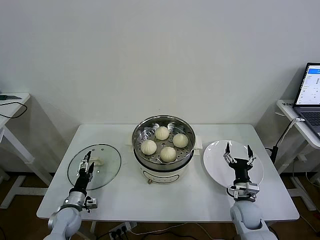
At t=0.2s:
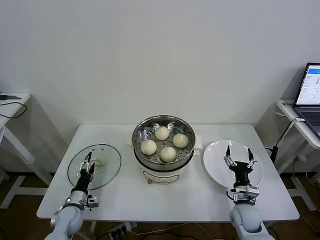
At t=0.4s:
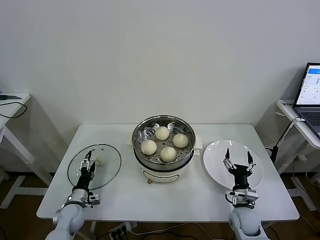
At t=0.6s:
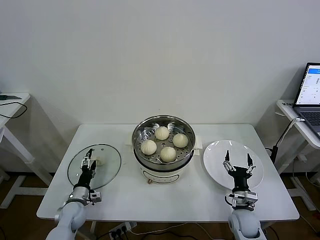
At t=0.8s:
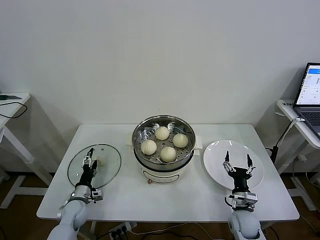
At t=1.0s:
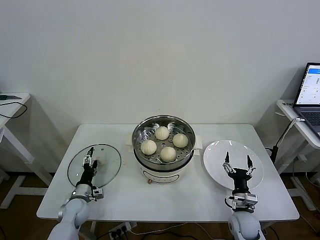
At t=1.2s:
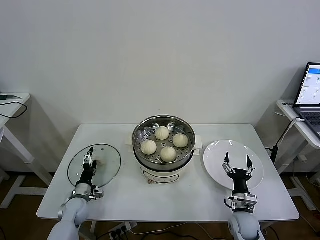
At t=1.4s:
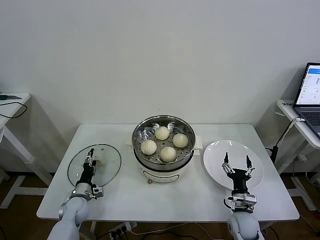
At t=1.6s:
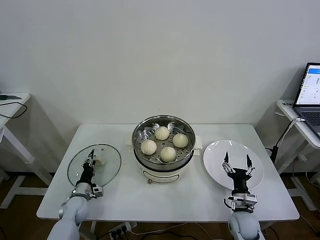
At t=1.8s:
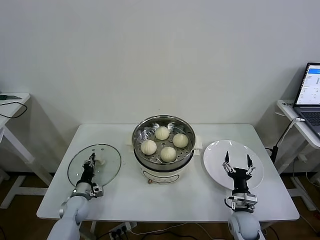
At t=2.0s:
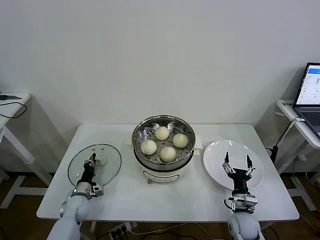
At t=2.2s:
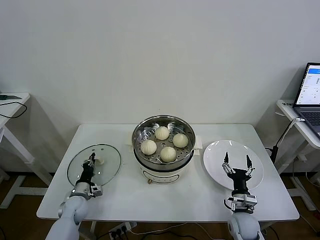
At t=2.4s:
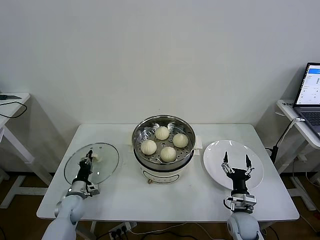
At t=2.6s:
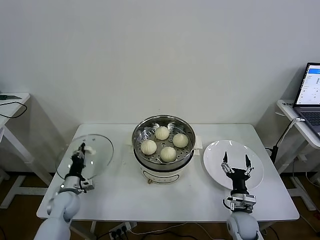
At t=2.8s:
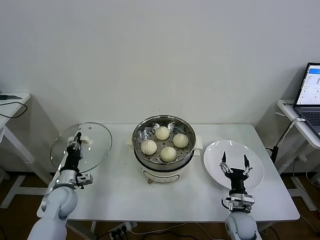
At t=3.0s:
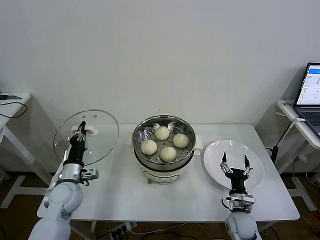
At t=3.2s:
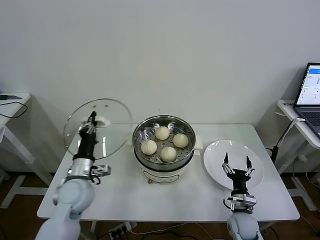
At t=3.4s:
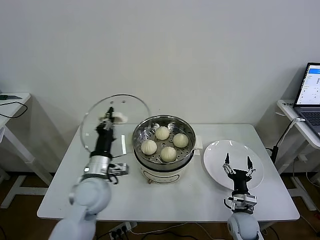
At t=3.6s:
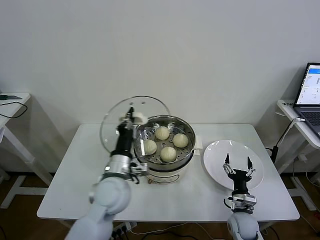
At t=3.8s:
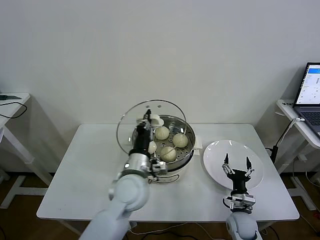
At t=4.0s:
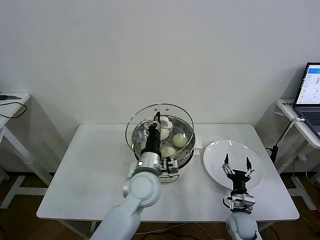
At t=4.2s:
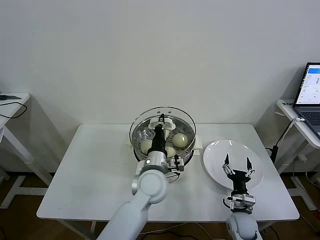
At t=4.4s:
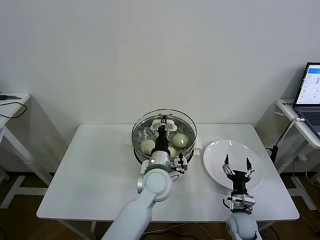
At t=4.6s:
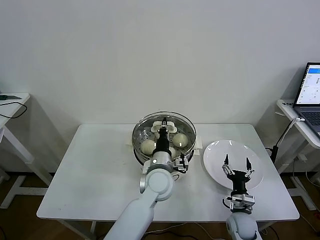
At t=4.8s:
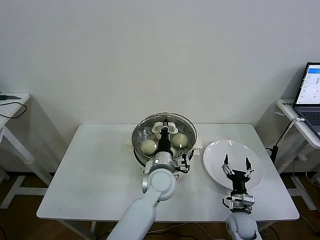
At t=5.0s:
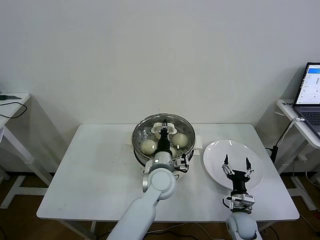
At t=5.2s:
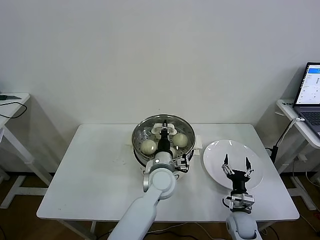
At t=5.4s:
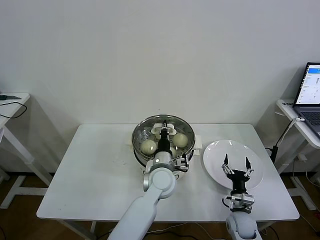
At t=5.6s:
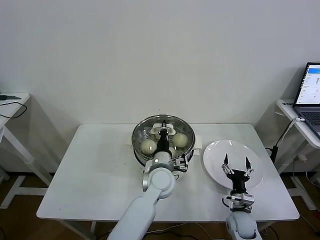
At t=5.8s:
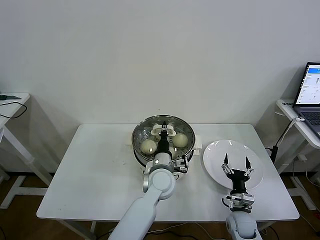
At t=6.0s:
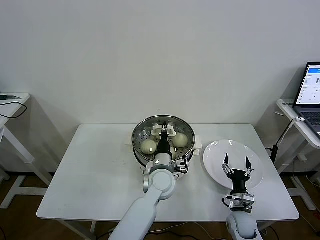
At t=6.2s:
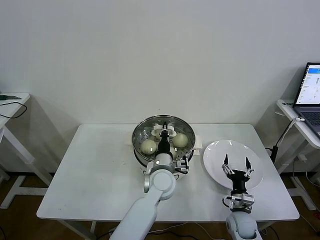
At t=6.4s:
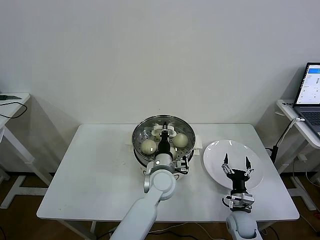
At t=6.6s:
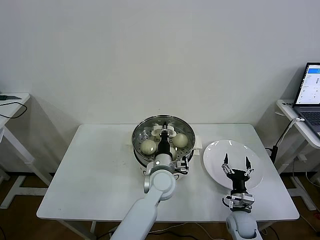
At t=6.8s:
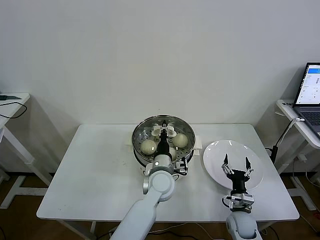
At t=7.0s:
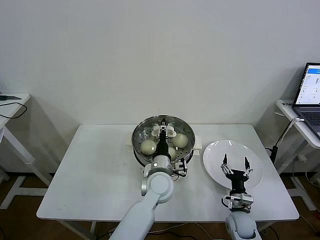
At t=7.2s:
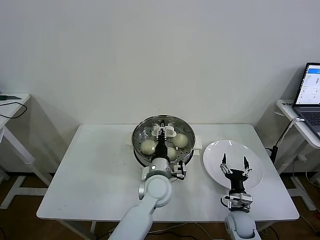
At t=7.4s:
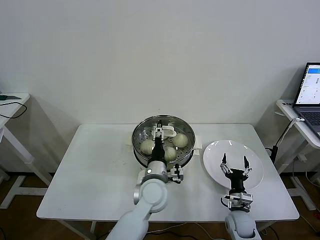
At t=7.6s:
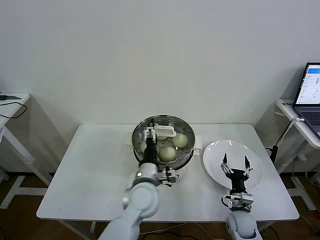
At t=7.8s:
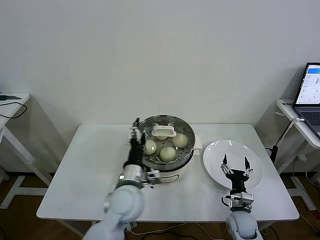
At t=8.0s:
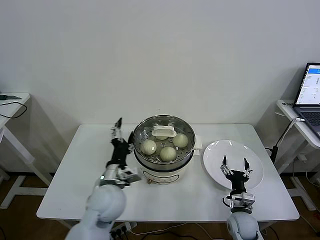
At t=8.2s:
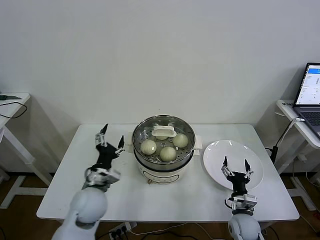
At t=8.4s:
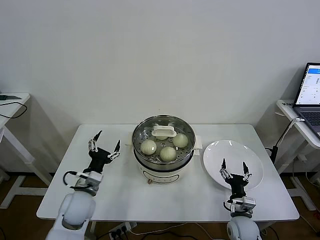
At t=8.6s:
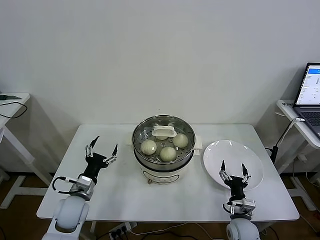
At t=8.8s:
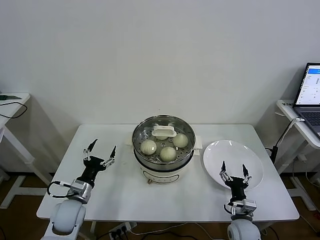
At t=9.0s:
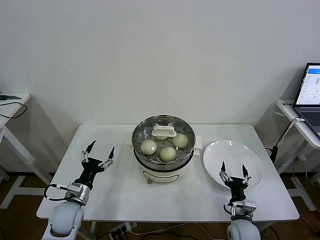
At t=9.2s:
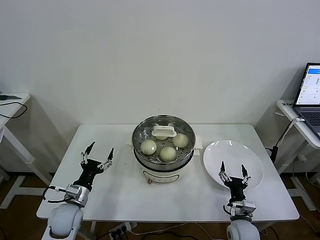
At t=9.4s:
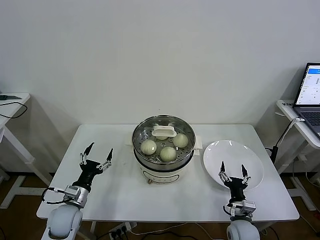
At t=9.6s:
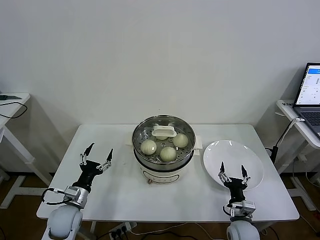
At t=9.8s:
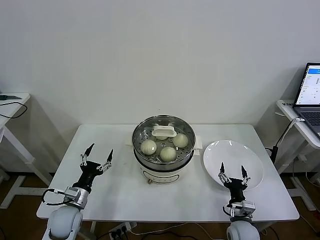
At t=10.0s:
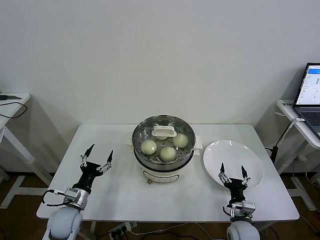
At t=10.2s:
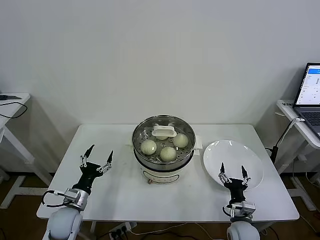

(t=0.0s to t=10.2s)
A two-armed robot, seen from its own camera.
Task of the whole recording: take steamed baozi put them in steamer then cover it.
Step, t=0.0s - t=2.0s: Grasp the pot lid with left gripper.
Step, t=2.2s - t=7.4s: Place the pot lid on the steamer with left gripper.
t=0.0s - t=1.4s: The left gripper ends up approximately 5 cm from where it was.
t=1.4s - t=3.0s: The left gripper shifts approximately 15 cm upward, and closes.
t=3.0s - t=4.4s: The left gripper heads to the right, covering some 30 cm.
t=4.4s - t=5.8s: The grippers stay close to where they were, moving slightly.
t=5.8s - t=7.2s: The left gripper opens its fingers.
t=7.2s - t=8.8s: The left gripper shifts roughly 30 cm to the left, and opens up.
t=8.8s - t=10.2s: The grippers stay close to where they were, moving slightly.
